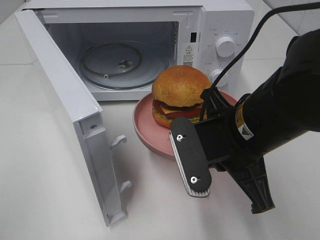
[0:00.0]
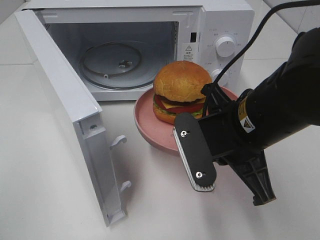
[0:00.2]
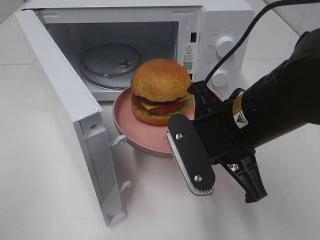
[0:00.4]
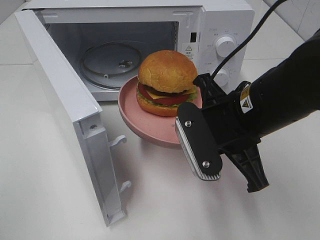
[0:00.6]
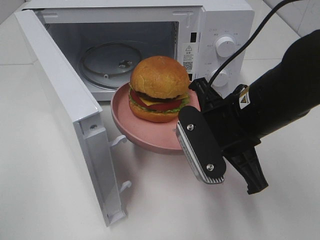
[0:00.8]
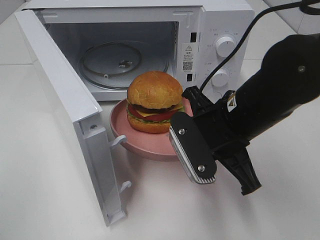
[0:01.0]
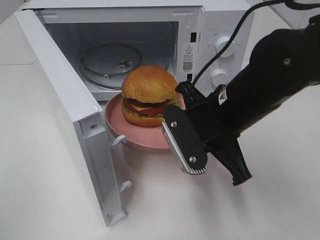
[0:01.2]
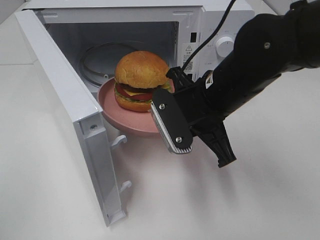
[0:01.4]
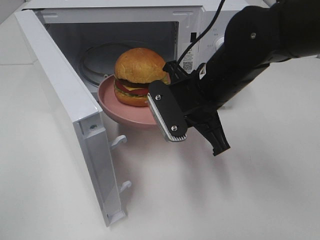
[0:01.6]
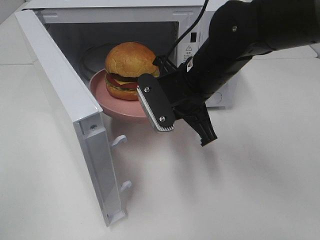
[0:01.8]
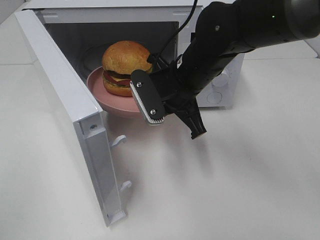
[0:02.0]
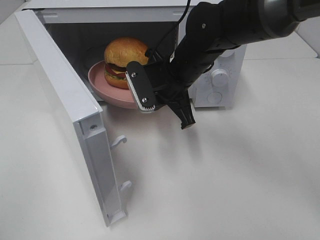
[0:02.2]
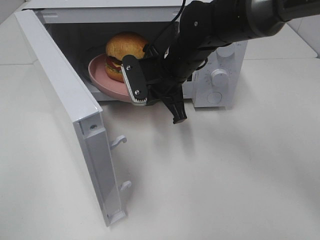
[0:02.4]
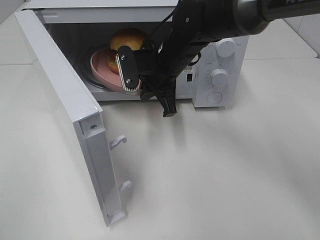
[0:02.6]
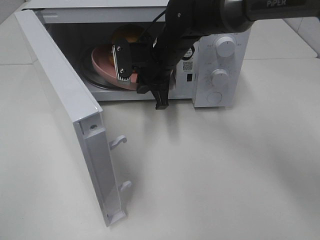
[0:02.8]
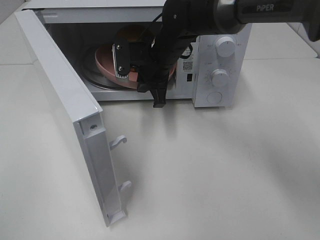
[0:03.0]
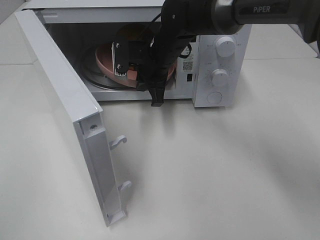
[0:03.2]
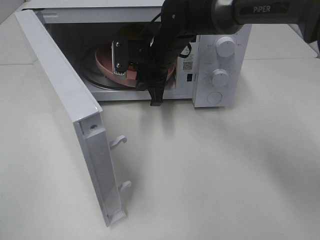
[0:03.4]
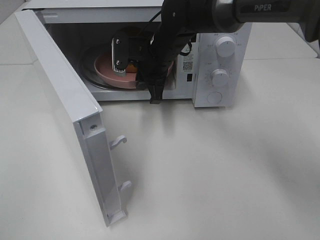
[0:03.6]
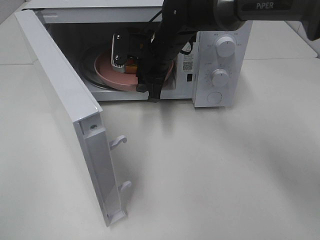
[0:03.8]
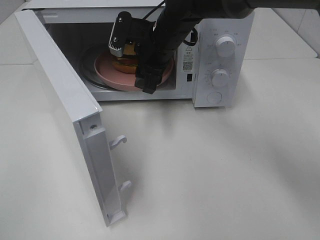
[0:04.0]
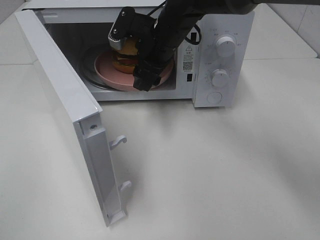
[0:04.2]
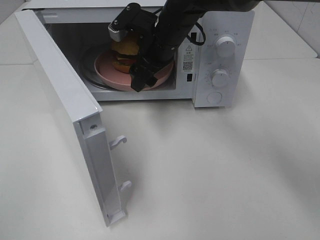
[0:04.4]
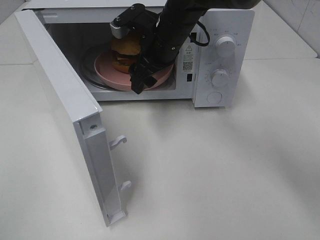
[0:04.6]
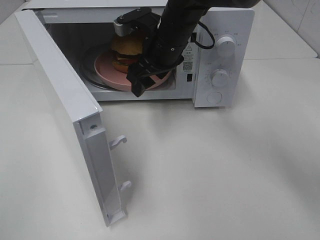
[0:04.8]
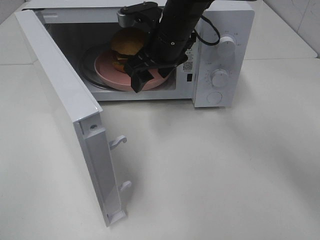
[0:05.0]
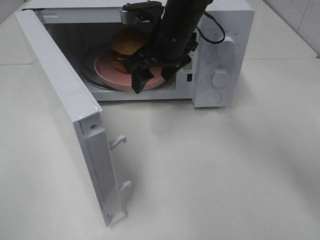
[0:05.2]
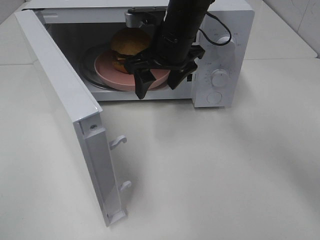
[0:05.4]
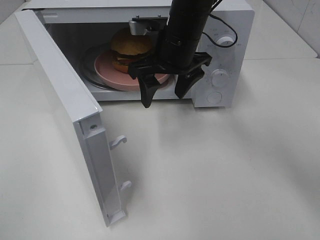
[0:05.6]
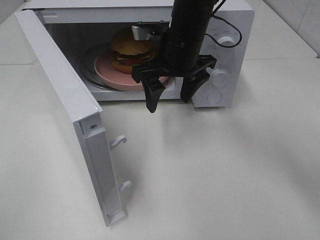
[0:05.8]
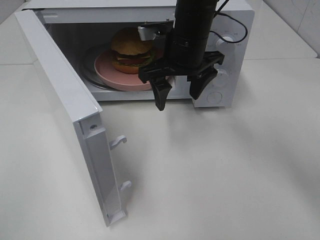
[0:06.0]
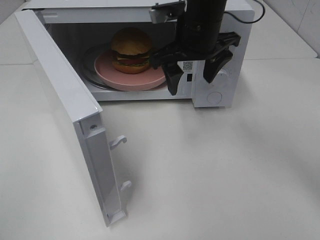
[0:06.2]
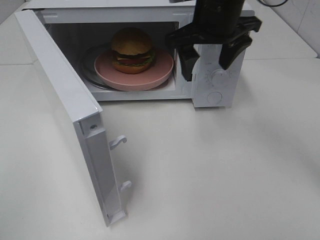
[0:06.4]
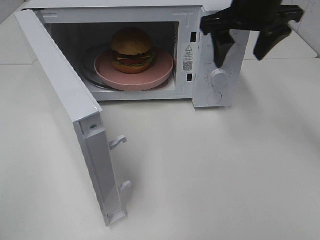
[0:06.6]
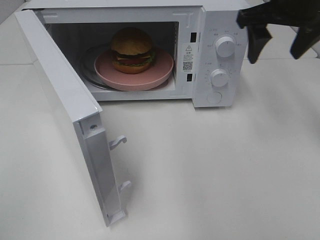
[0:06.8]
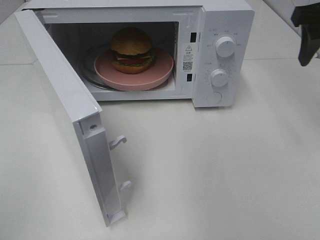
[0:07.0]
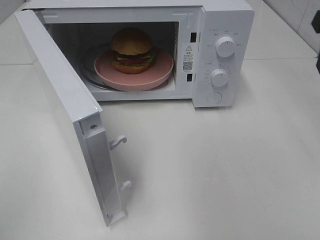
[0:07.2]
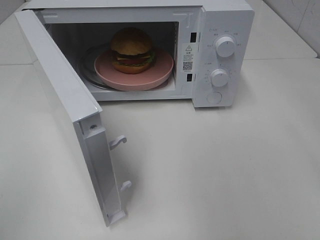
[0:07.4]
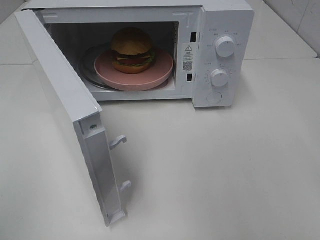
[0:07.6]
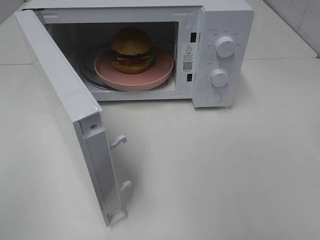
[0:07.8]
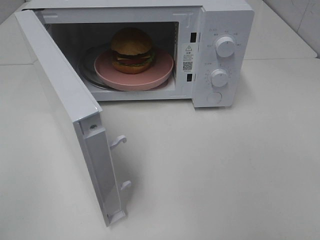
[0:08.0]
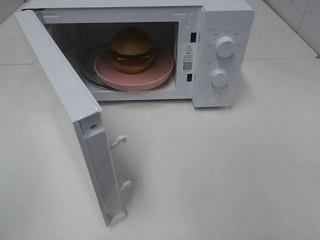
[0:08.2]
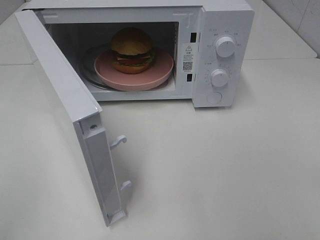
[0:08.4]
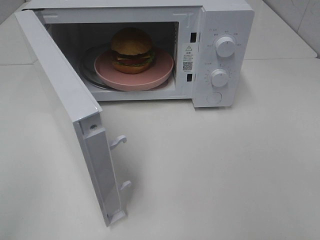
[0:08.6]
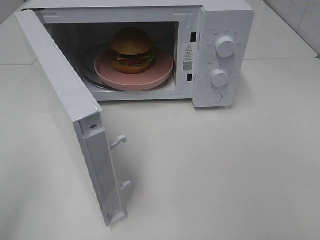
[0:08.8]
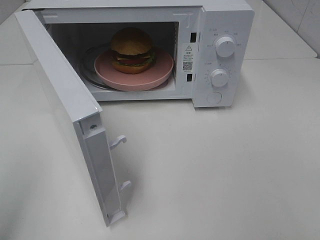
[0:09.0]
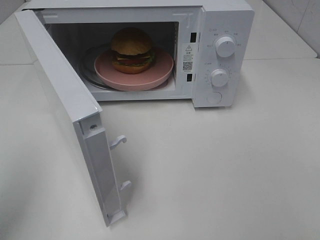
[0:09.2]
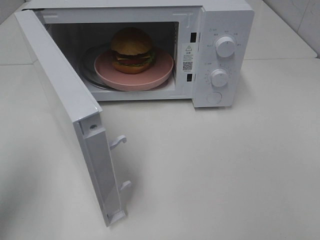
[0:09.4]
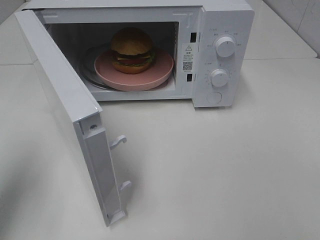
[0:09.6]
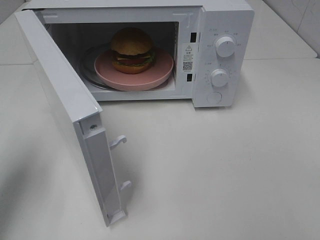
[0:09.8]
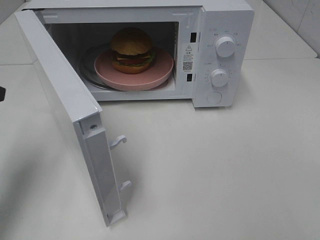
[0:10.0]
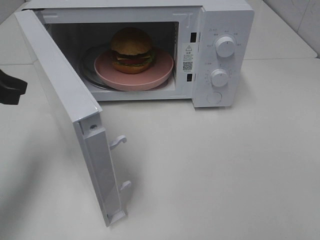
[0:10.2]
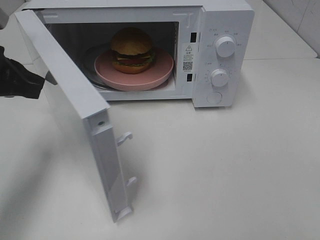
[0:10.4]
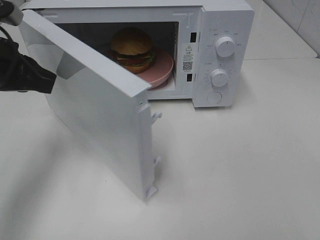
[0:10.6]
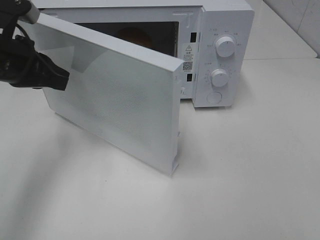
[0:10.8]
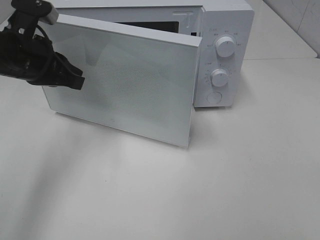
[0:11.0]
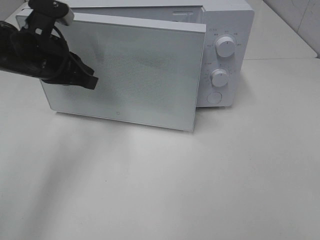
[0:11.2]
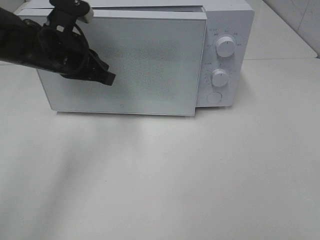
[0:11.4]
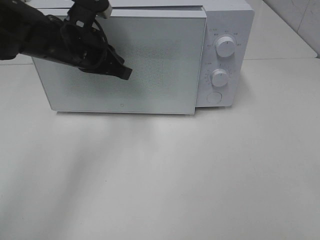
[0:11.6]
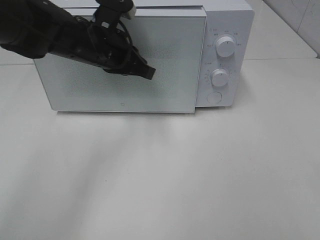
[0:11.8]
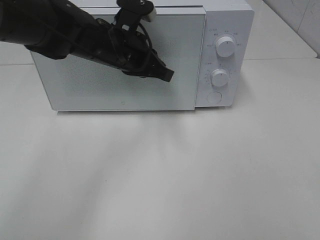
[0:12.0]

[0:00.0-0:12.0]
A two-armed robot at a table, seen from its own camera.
Task of the whole recording: Heat the burger.
Step, 0:00.0 to 0:03.6: Right hand: place the plate in the microwave.
0:00.0 to 0:01.6: The right gripper heads forward, covering roughly 10 cm.
0:01.6 to 0:03.0: The right gripper moves forward and to the left, roughly 15 cm.
0:03.0 to 0:04.4: The right gripper opens.
0:04.4 to 0:06.0: The right gripper moves about 5 cm.
0:06.0 to 0:07.6: The right gripper shifts some 30 cm to the right and backward.
0:09.0 to 0:10.4: The left gripper goes about 20 cm forward.
0:10.4 to 0:12.0: The left gripper moves to the right and forward, approximately 20 cm.

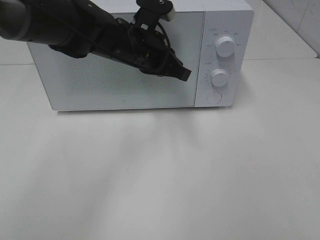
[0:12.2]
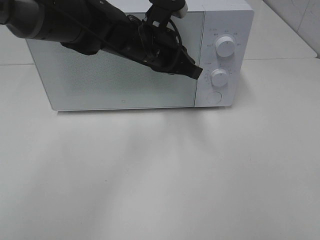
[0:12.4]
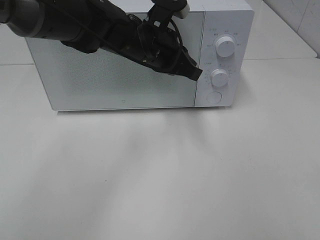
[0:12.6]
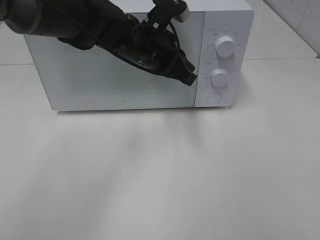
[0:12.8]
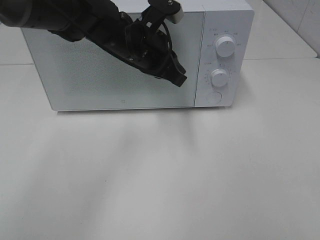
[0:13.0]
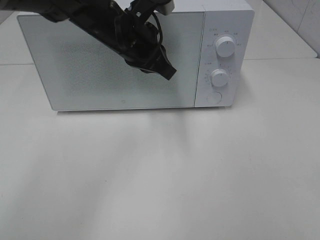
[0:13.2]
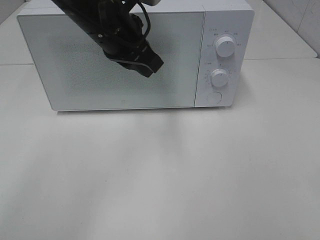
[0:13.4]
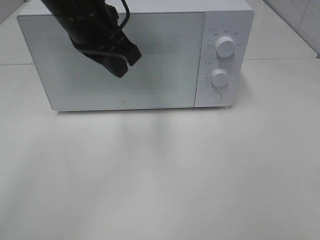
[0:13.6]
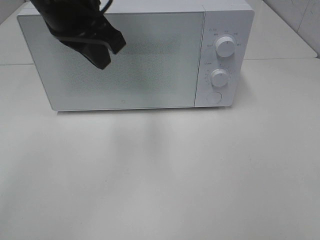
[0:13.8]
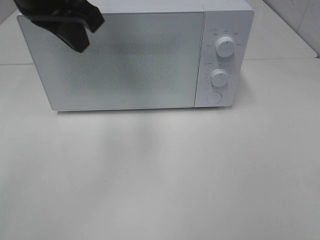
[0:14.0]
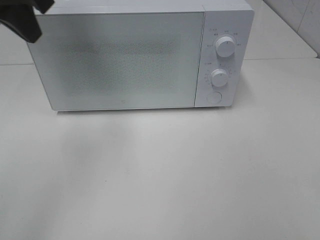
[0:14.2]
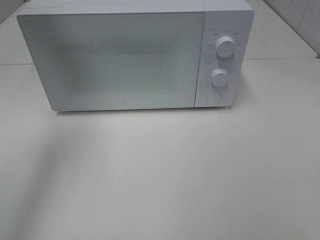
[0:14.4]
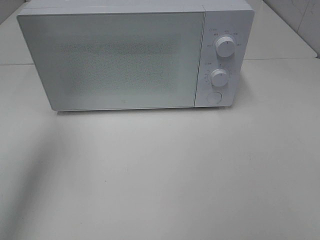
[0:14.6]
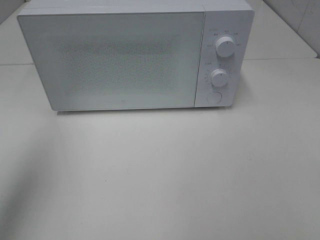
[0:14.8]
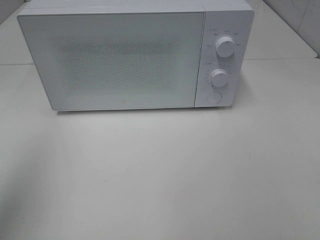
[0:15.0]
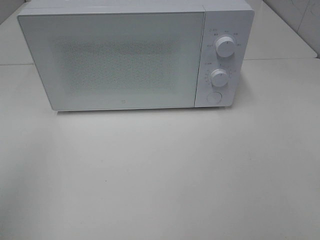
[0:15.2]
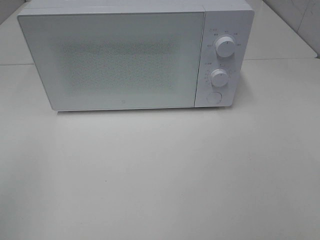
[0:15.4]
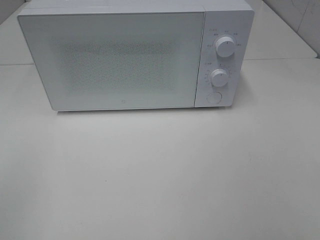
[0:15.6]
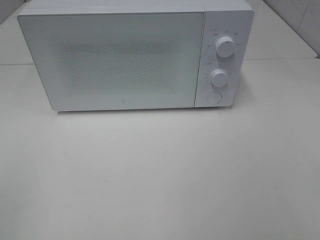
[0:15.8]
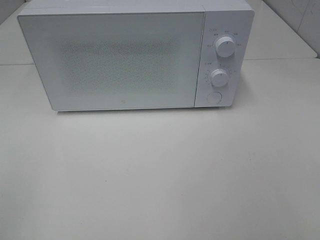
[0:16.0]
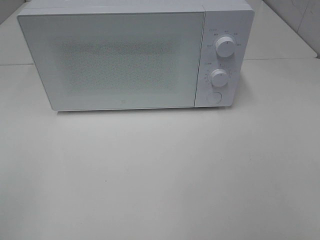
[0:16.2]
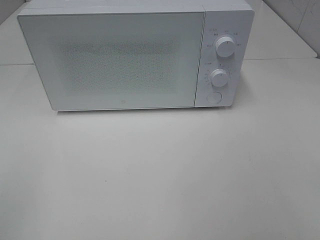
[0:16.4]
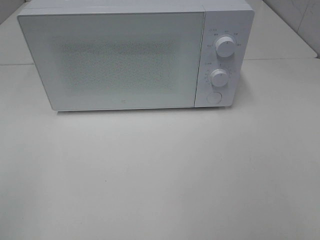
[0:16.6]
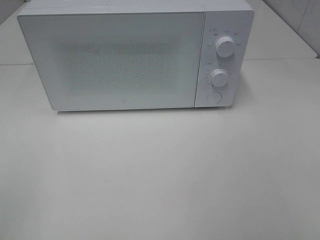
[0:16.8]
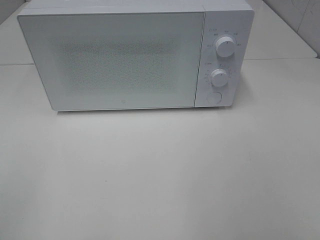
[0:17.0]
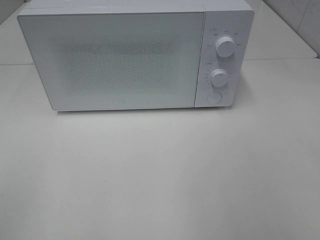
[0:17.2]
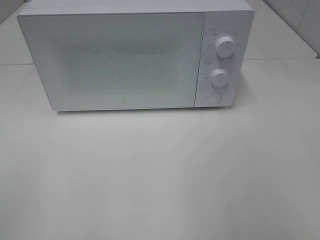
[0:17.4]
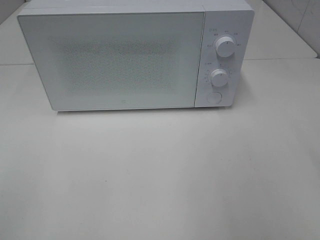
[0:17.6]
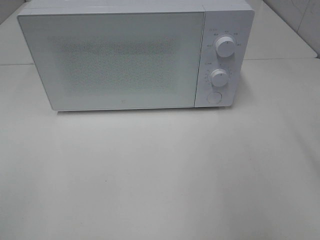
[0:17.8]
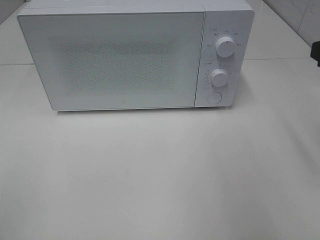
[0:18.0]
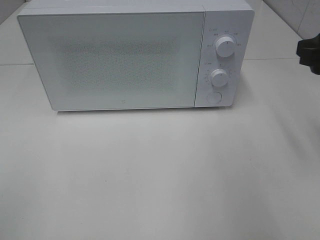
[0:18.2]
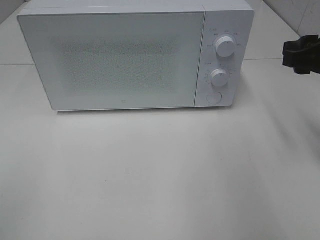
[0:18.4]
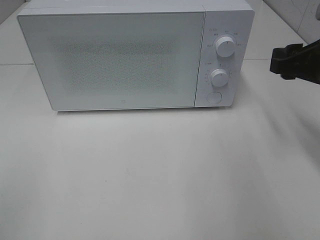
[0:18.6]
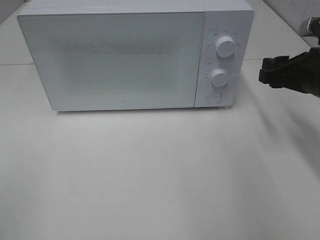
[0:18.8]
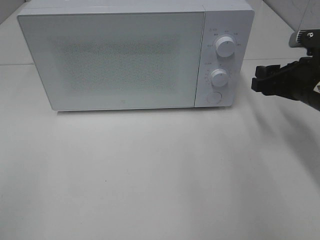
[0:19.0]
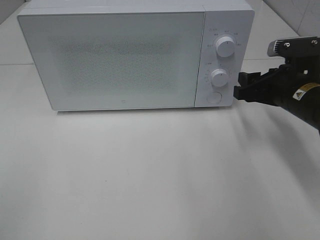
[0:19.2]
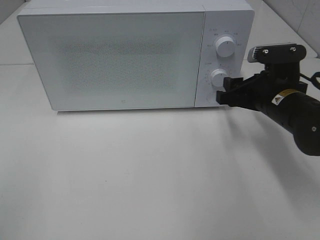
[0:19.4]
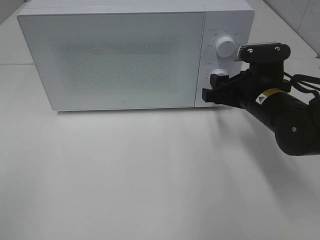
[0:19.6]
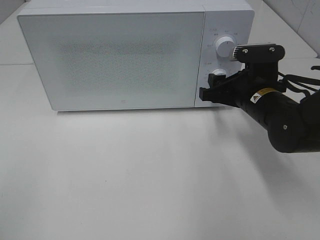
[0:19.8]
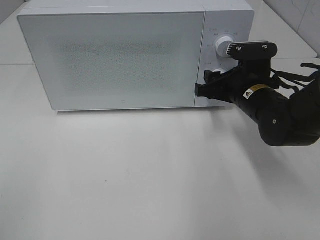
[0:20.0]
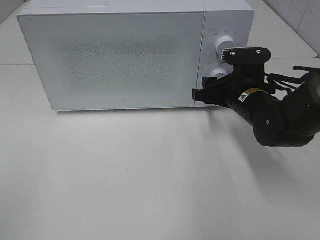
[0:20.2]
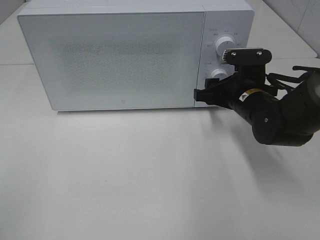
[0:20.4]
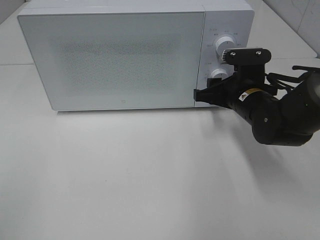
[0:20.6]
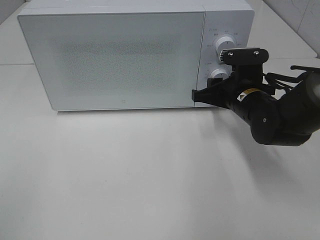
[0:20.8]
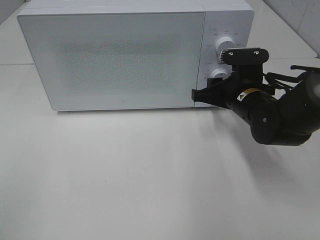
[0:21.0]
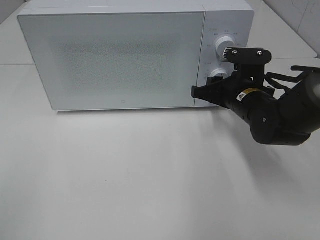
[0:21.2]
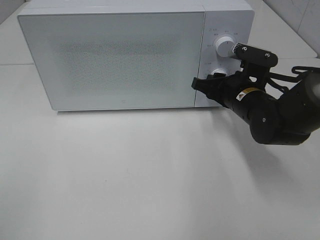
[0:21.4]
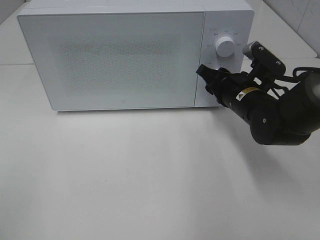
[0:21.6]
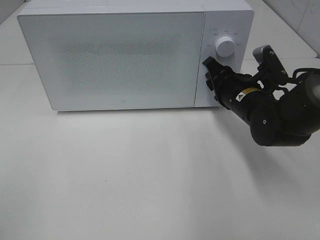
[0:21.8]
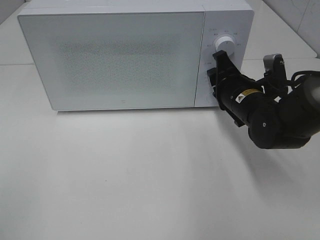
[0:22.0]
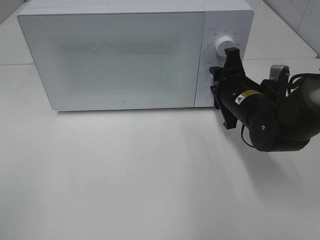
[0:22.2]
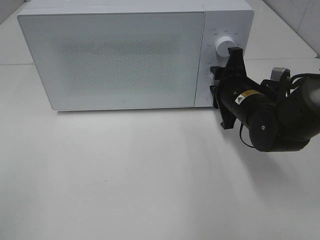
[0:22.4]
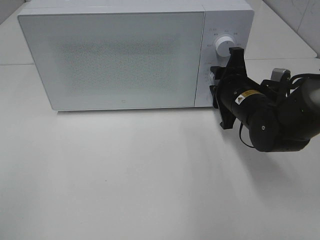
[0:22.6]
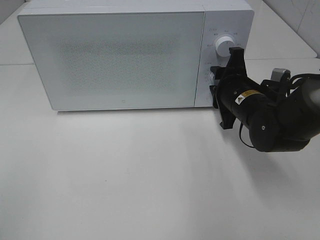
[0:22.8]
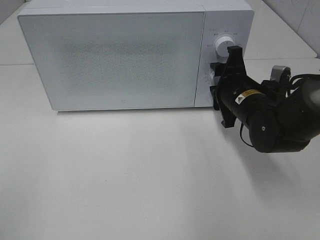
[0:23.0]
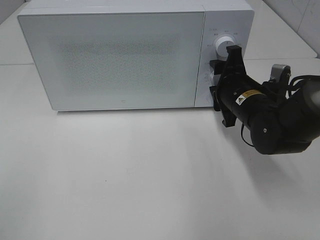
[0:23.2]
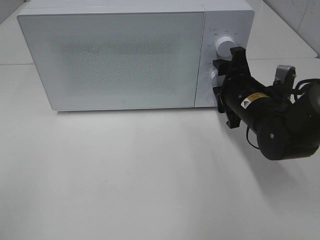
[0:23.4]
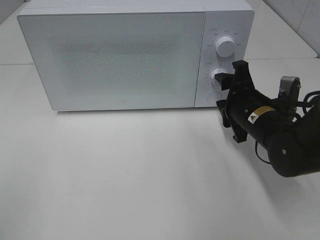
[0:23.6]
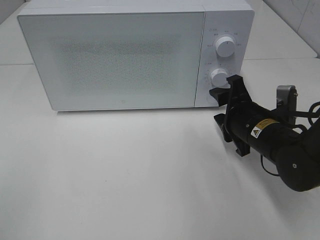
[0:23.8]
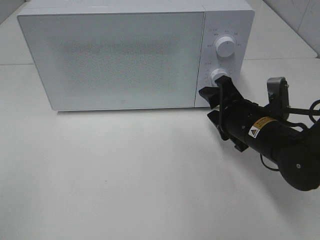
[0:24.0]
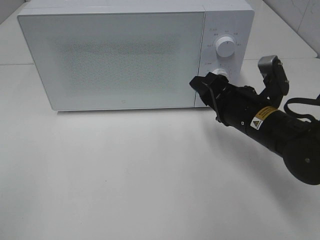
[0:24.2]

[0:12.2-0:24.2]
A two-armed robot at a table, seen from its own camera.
Task of the whole recording: Heat the burger.
Step, 0:13.0 to 0:23.0: Right hand: twist timer button.
0:12.2 to 0:13.8: The left gripper heads upward, to the left and backward, covering approximately 15 cm.
0:13.8 to 0:15.2: The left gripper is displaced backward and to the left by about 30 cm.
0:16.6 to 0:18.2: The right gripper is displaced forward by some 25 cm.
0:18.2 to 0:19.8: The right gripper moves downward, to the left and forward, about 20 cm.
0:19.8 to 0:21.2: The grippers move only a little.
0:22.6 to 0:24.2: The right gripper travels backward by some 5 cm.
